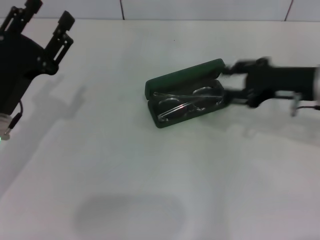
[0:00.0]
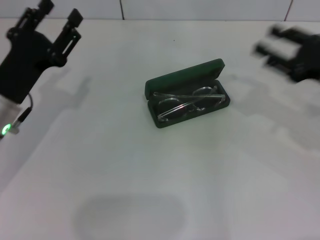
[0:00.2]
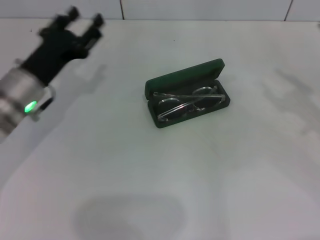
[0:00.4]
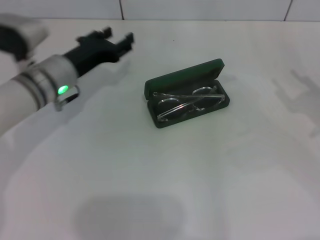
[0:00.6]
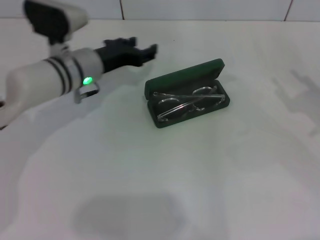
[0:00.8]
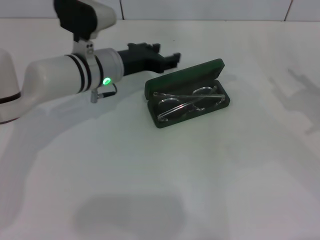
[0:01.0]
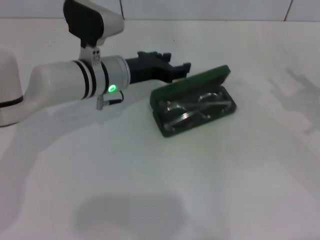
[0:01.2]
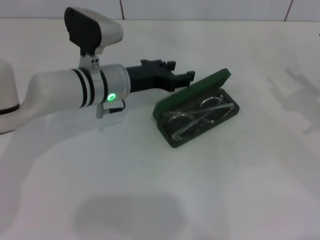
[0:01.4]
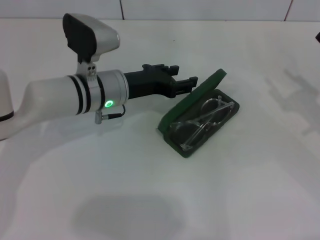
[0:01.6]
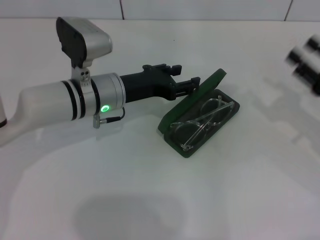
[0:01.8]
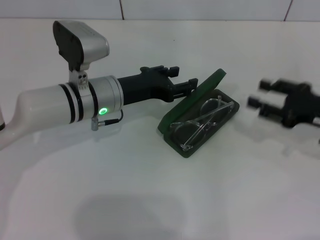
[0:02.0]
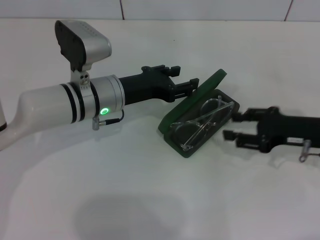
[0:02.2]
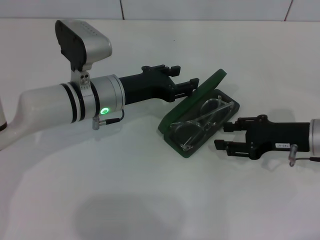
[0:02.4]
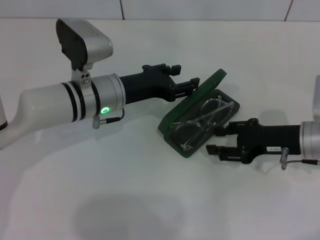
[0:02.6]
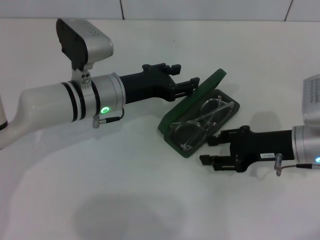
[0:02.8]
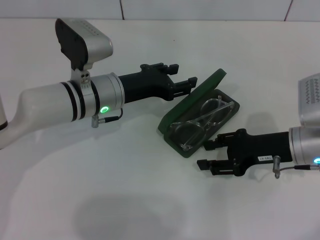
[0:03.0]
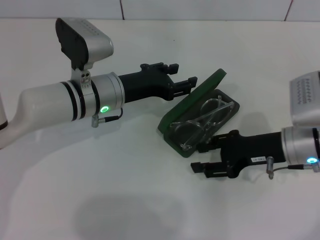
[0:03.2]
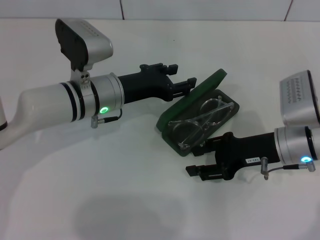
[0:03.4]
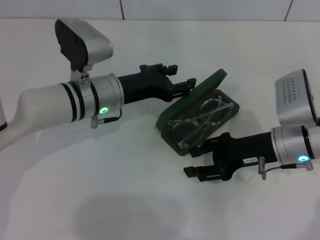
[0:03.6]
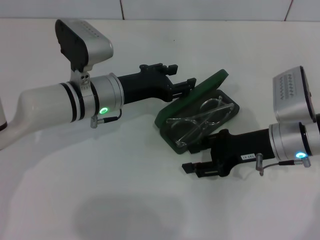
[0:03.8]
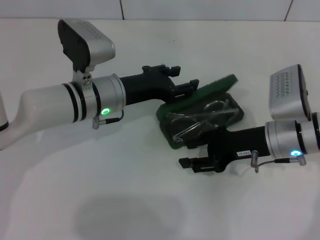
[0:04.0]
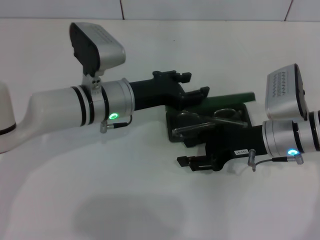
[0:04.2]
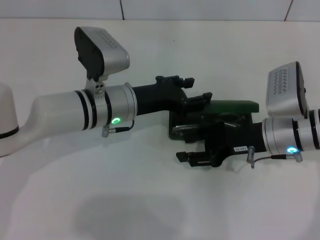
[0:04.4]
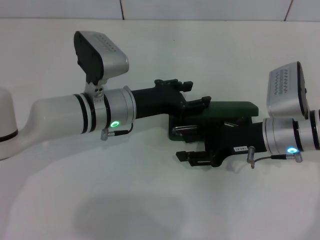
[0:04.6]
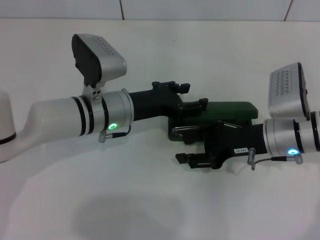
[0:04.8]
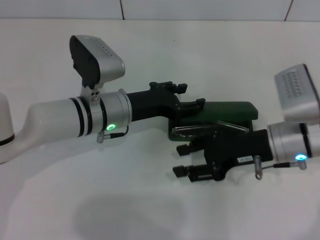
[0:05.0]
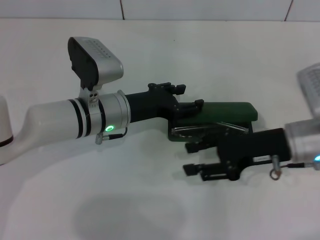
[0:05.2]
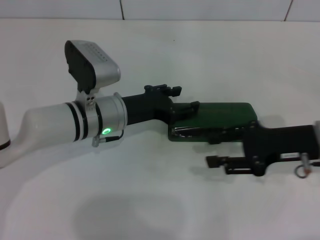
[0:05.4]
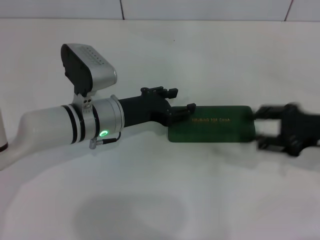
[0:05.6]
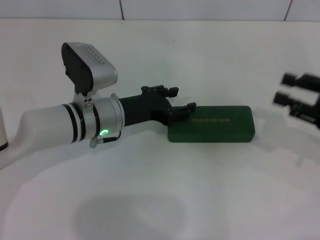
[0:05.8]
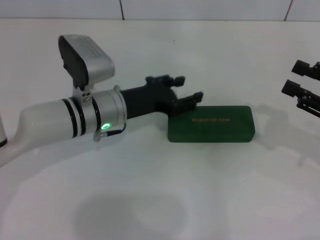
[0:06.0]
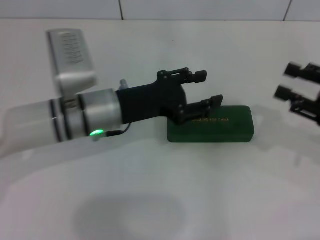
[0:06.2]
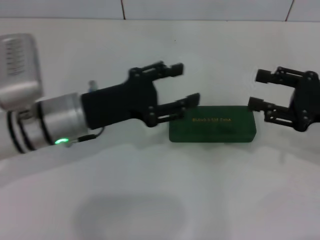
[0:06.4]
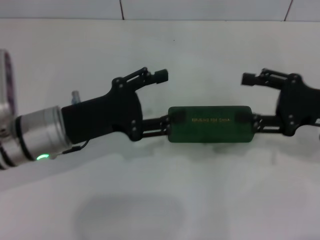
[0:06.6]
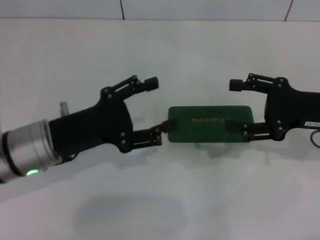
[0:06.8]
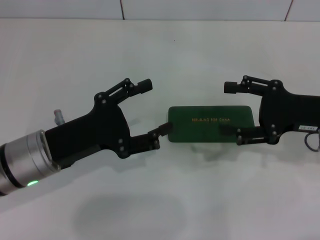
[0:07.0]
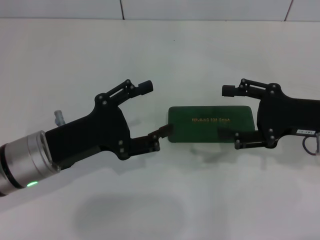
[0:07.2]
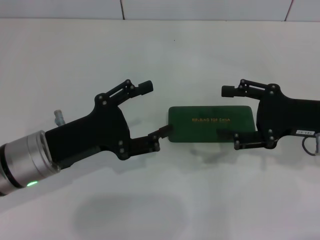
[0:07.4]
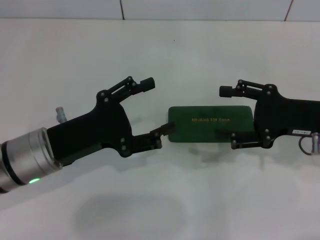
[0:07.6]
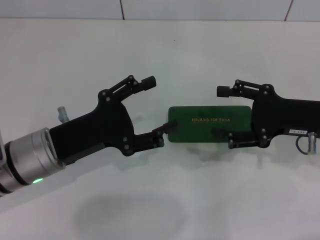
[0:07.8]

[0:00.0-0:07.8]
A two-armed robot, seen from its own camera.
Step, 0:00.0 to 0:05.4: Close the glasses case with your left hand.
0:00.0 to 0:01.6: The right gripper is displaced to the right, downward and backward by approximately 10 cm; the left gripper moves to the right and forward, some 15 cm.
0:01.6 to 0:03.2: The right gripper is displaced to the left by approximately 10 cm.
0:04.6 to 0:06.2: The right gripper shifts some 15 cm to the right and backward.
0:06.2 to 0:07.8: The left gripper moves to the left and backward, about 10 cm; the right gripper heads to the left, covering some 5 cm, and opens up.

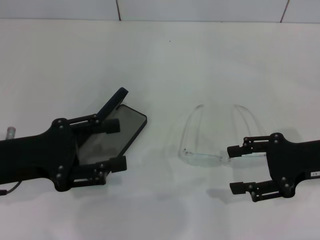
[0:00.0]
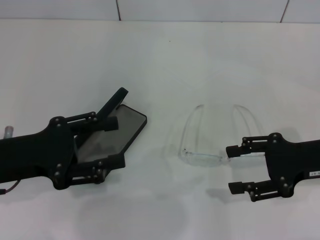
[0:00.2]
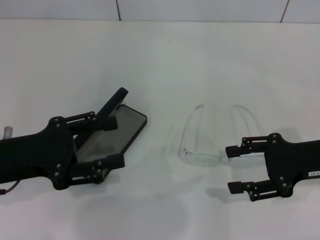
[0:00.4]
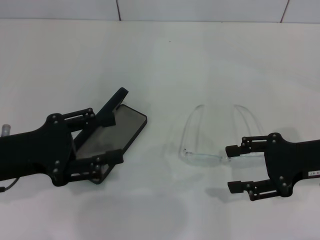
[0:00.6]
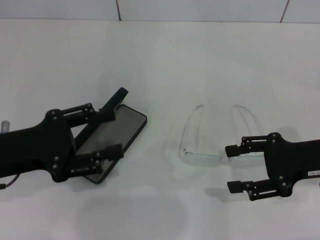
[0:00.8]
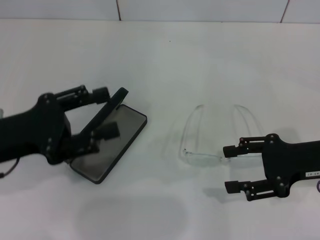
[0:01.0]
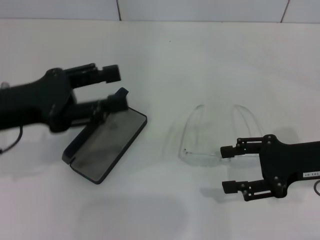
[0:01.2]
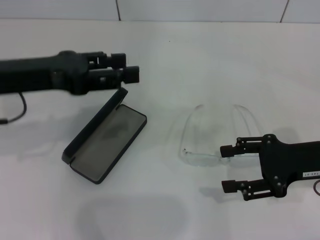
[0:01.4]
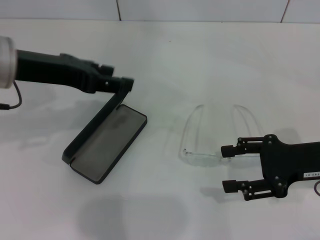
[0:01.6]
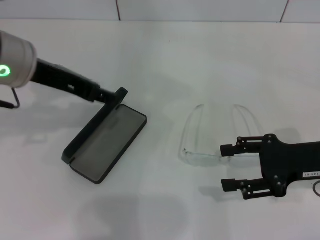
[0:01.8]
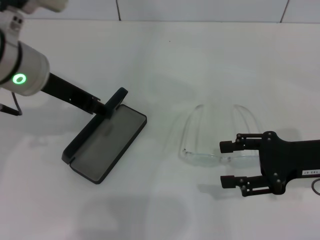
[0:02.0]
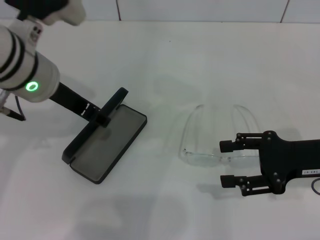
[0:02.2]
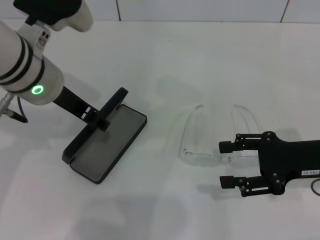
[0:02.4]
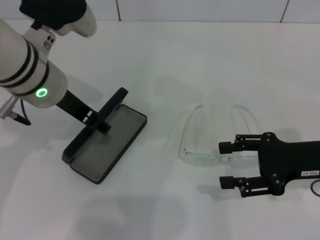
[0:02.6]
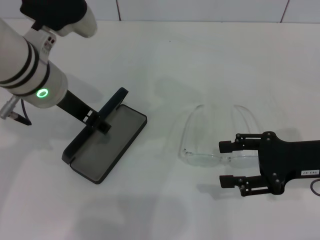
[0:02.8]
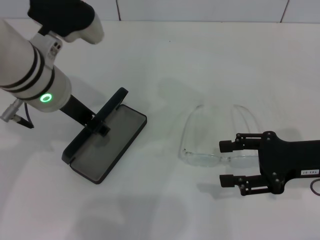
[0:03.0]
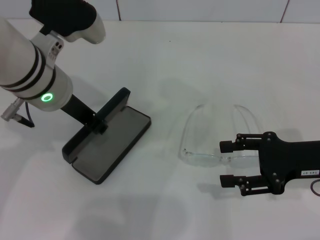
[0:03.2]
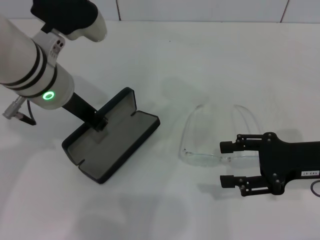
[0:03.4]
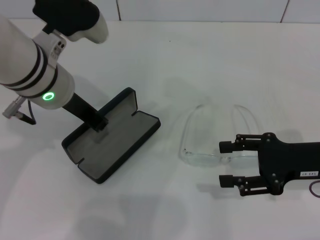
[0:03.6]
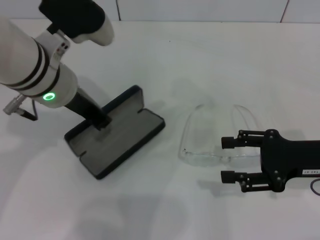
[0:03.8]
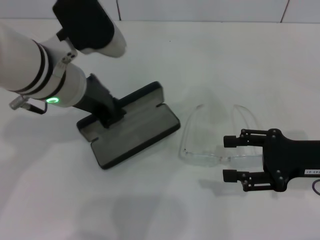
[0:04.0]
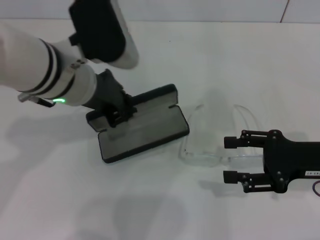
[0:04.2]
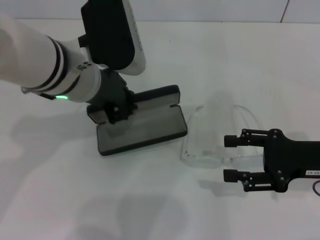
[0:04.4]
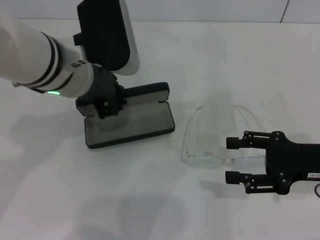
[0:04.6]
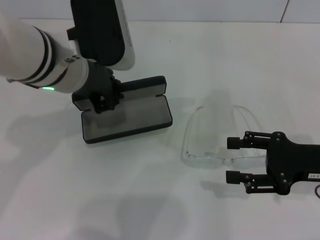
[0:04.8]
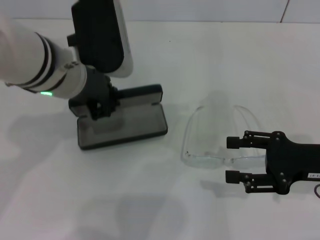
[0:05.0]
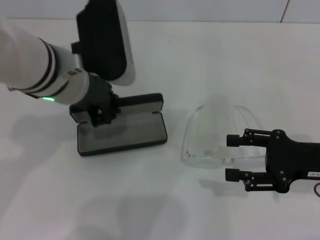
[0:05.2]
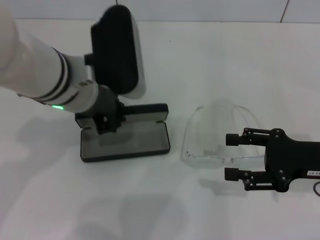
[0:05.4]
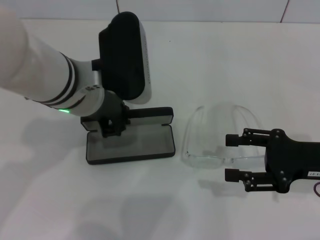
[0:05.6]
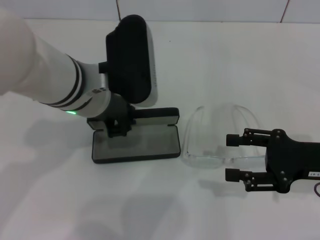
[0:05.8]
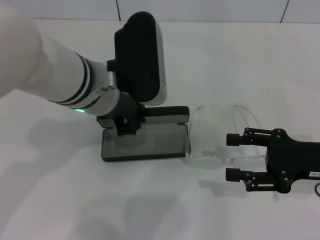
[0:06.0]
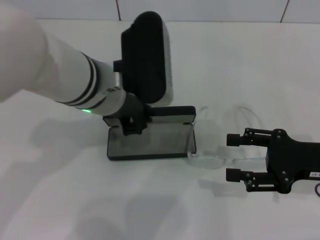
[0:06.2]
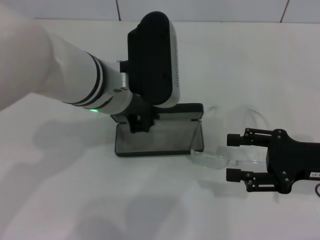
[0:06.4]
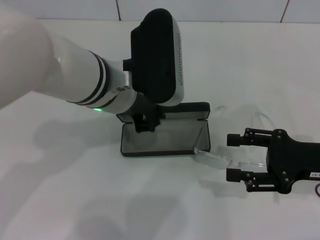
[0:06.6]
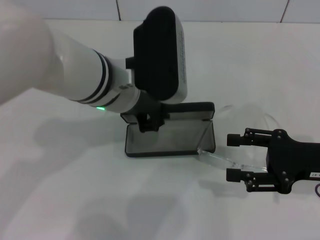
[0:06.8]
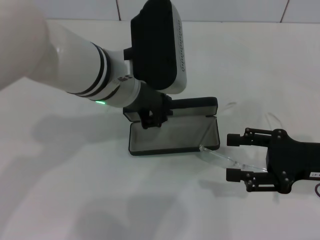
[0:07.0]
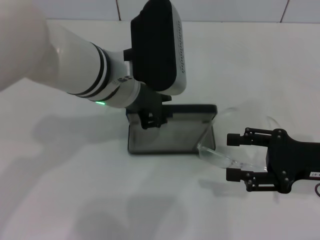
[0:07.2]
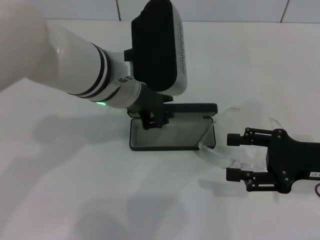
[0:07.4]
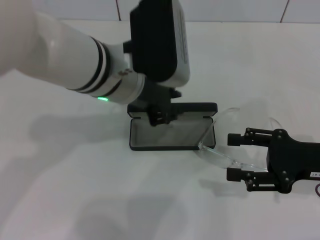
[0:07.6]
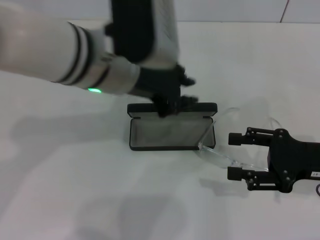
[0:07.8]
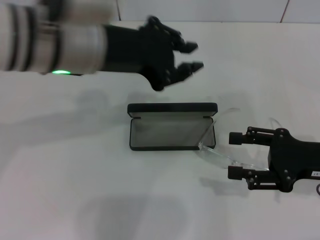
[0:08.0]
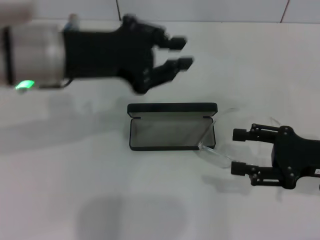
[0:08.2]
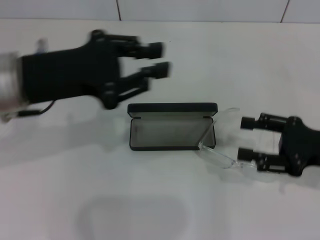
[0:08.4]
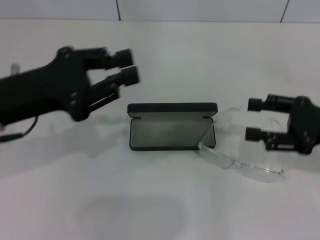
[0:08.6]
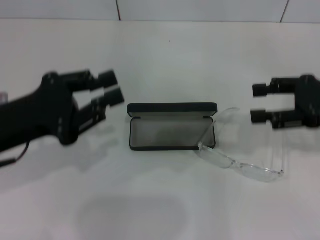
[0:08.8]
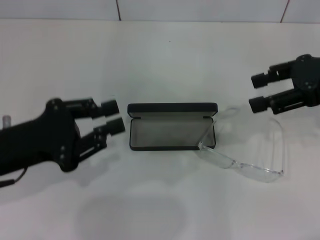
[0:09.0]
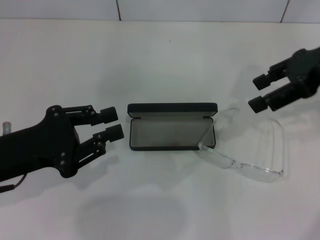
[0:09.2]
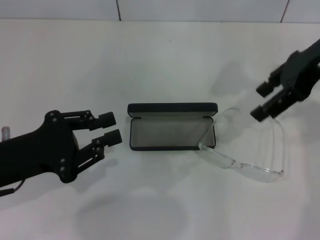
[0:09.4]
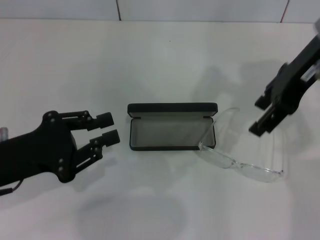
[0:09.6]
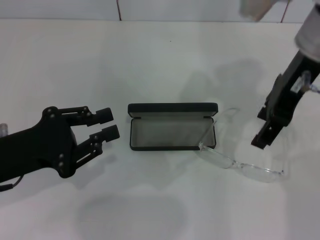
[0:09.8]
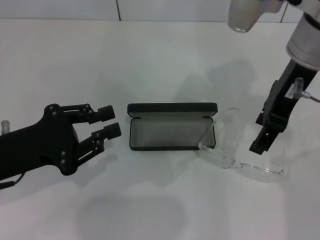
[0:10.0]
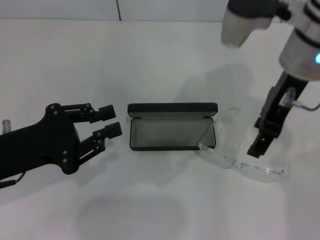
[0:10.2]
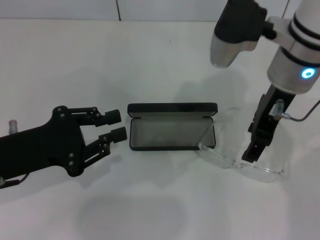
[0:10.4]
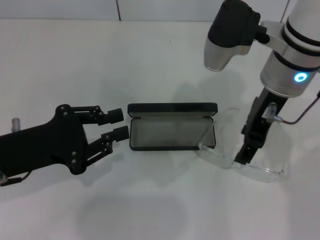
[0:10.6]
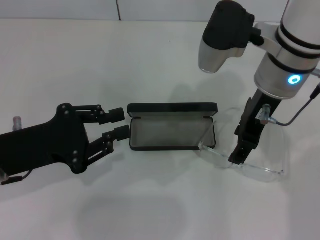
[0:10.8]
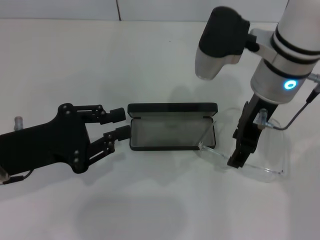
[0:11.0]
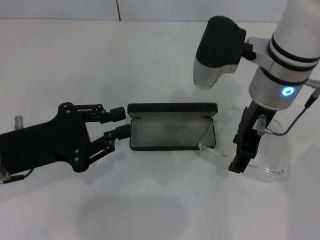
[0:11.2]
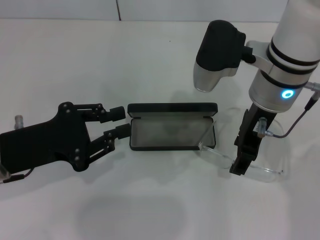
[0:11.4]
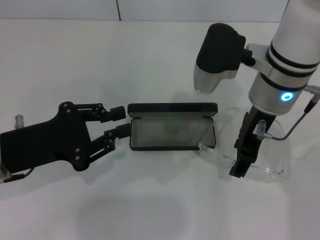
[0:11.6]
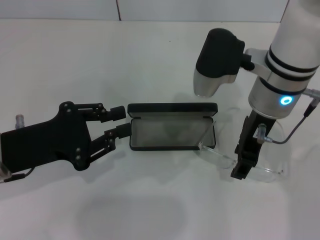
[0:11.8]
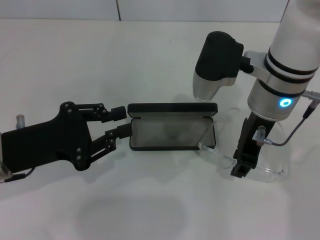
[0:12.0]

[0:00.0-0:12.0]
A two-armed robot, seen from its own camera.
Step, 0:00.0 to 0:03.4: Grab the glasses case with your left hand.
Step, 0:03.6 to 0:07.2: Place the glasses case in the center of the table with your left hand.
0:00.0 to 0:01.6: The left gripper shifts about 15 cm upward and forward.
0:01.6 to 0:03.0: The left gripper moves to the right, some 5 cm.
0:03.0 to 0:04.4: The left gripper closes its fingers.
0:04.4 to 0:07.6: The grippers stay close to where they were, moving slightly.
0:07.6 to 0:09.0: The right gripper travels upward and forward by about 15 cm, while the left gripper is displaced to the left and backward by some 20 cm.
0:09.0 to 0:10.4: The right gripper moves to the left, approximately 15 cm.
0:10.4 to 0:12.0: There are only small adjustments of the grippers.

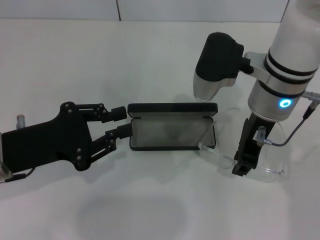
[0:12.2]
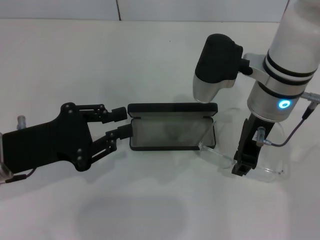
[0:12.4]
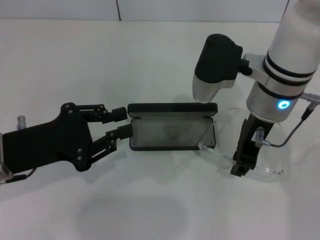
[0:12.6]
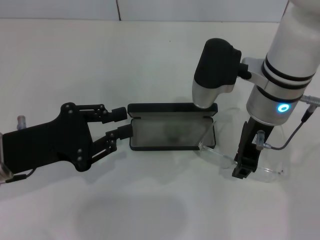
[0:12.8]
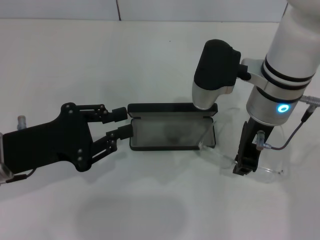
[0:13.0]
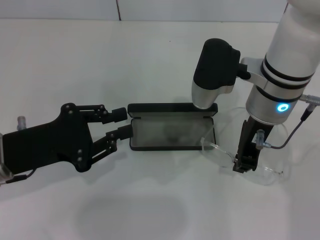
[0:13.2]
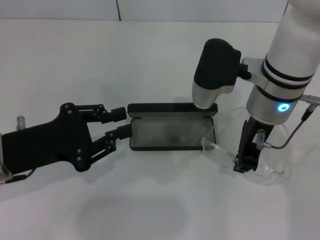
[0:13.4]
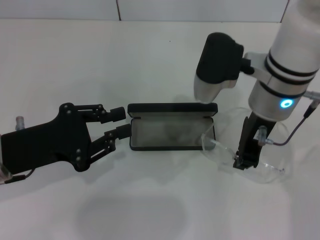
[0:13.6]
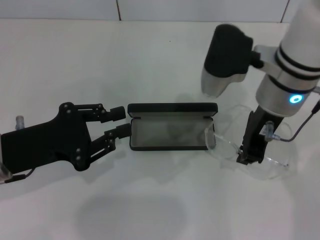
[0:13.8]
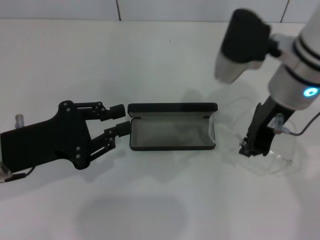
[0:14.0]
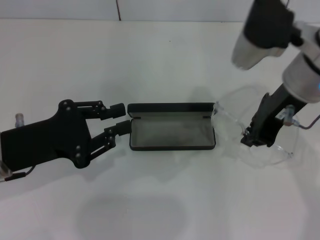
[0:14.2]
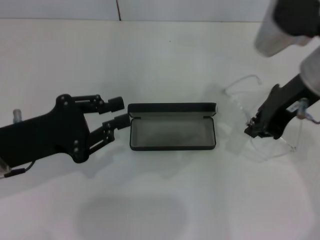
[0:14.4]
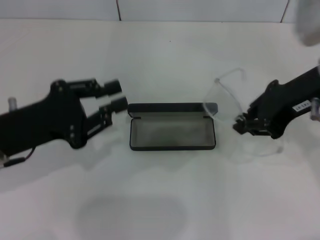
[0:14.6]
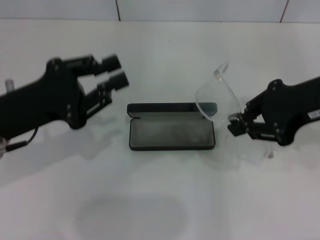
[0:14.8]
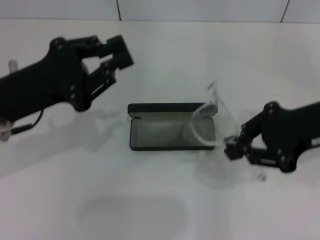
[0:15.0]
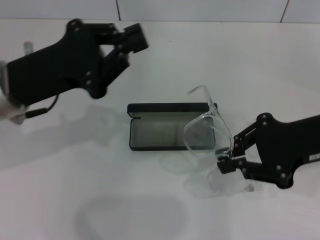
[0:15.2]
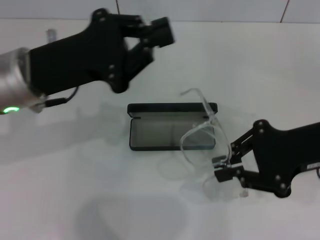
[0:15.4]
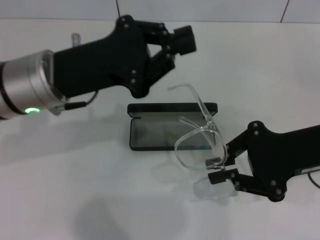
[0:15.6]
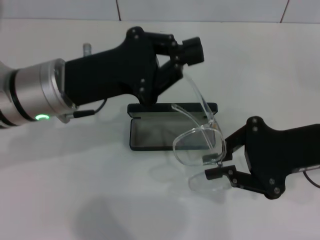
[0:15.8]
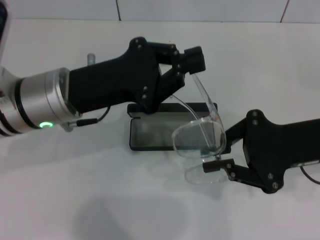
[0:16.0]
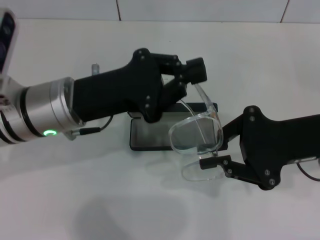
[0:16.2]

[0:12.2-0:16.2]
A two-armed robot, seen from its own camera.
0:12.2 to 0:13.6: The right gripper closes up.
0:13.6 to 0:14.8: The right gripper goes some 10 cm to the right.
0:14.8 to 0:16.2: The right gripper travels downward by approximately 5 cm. Meanwhile the left gripper goes about 10 cm to the right.
